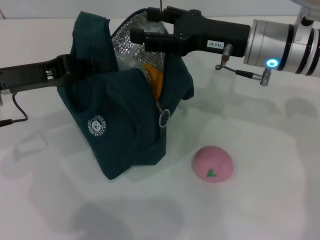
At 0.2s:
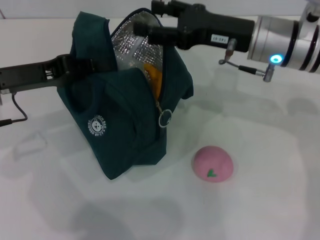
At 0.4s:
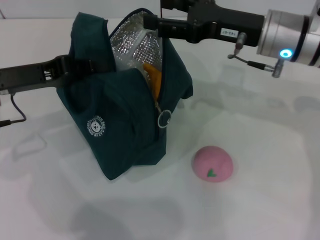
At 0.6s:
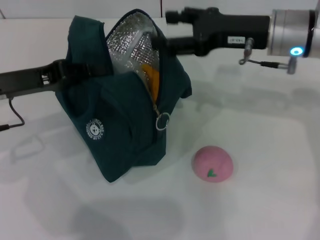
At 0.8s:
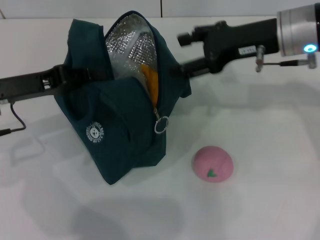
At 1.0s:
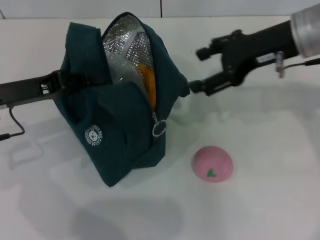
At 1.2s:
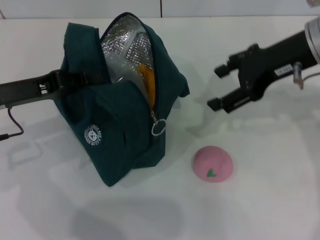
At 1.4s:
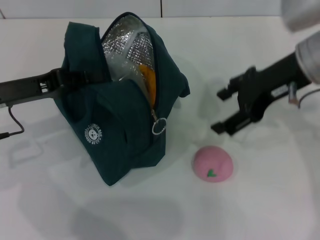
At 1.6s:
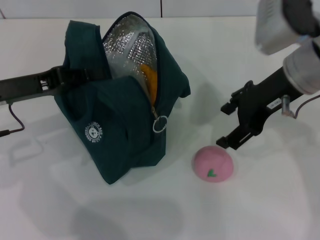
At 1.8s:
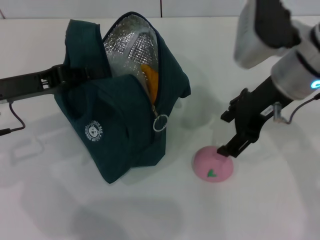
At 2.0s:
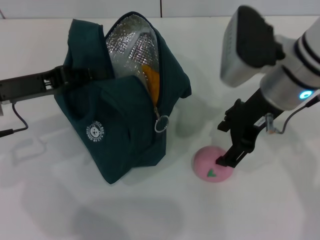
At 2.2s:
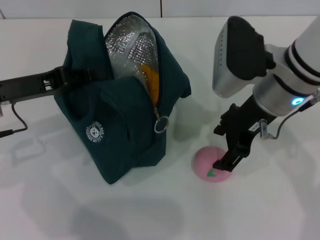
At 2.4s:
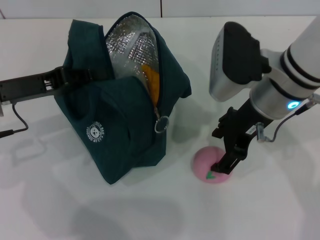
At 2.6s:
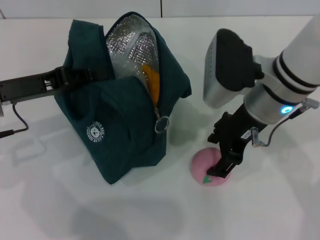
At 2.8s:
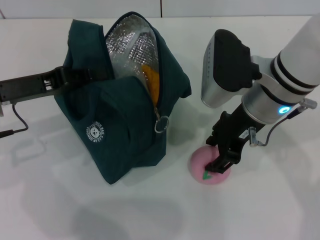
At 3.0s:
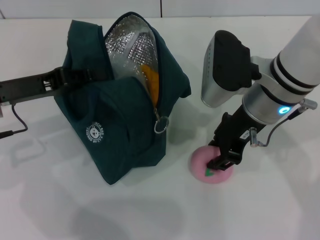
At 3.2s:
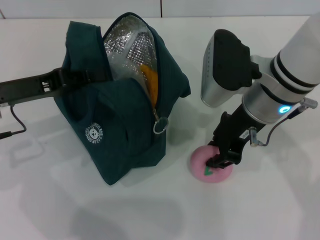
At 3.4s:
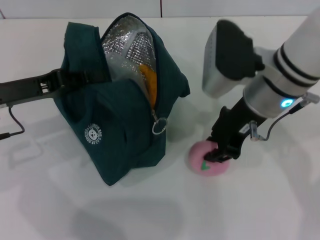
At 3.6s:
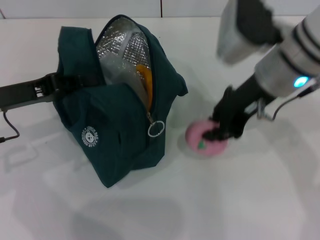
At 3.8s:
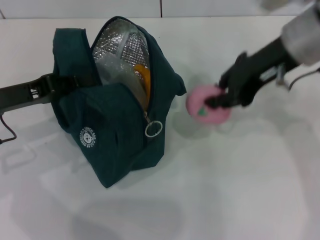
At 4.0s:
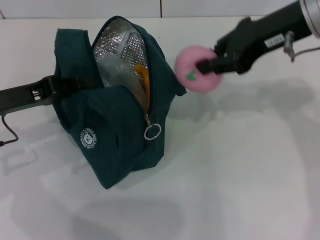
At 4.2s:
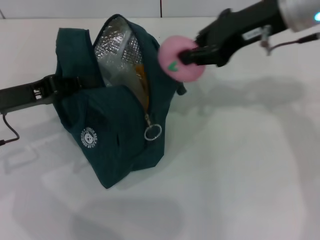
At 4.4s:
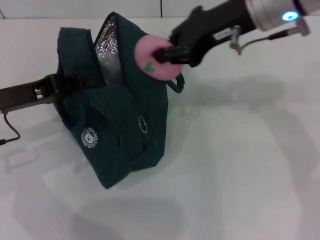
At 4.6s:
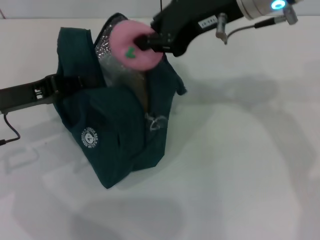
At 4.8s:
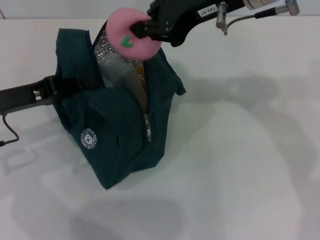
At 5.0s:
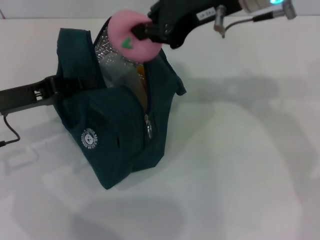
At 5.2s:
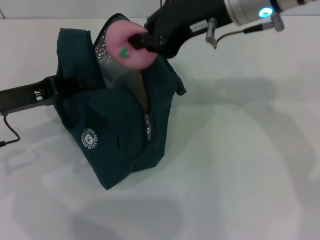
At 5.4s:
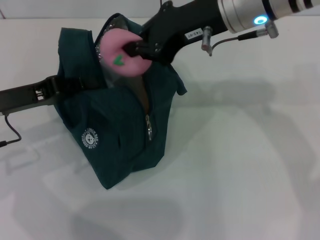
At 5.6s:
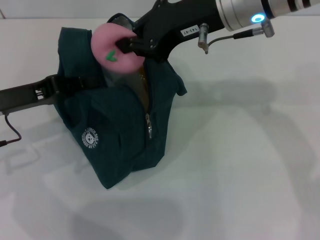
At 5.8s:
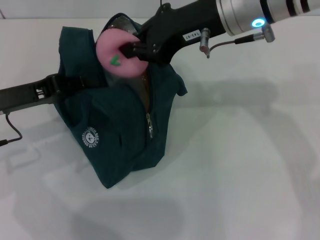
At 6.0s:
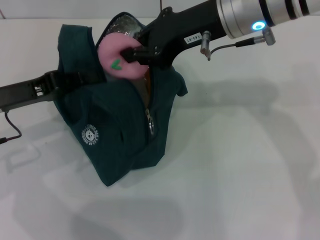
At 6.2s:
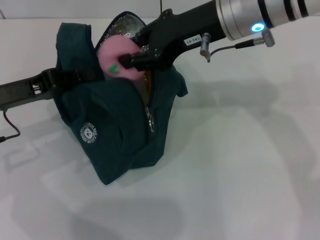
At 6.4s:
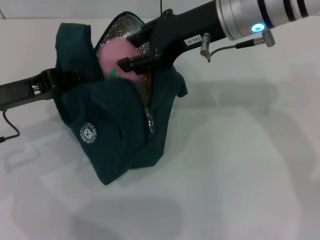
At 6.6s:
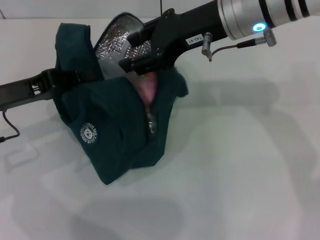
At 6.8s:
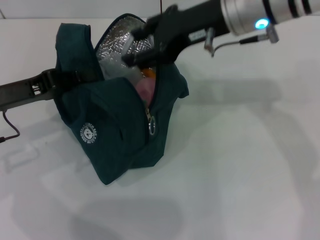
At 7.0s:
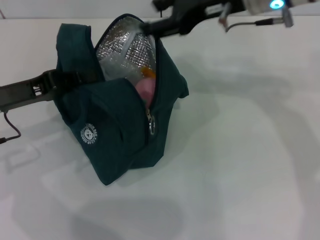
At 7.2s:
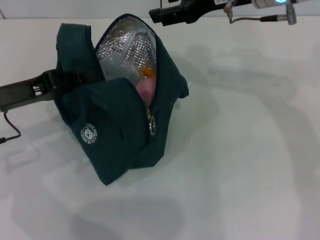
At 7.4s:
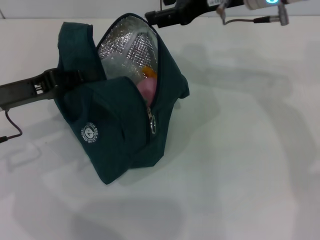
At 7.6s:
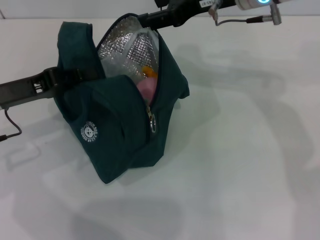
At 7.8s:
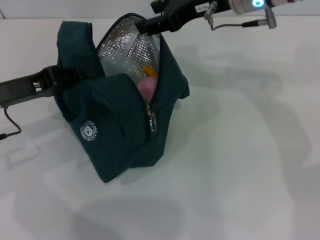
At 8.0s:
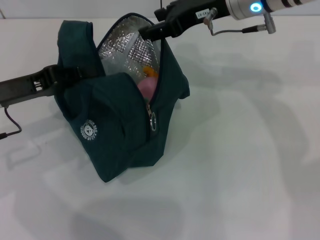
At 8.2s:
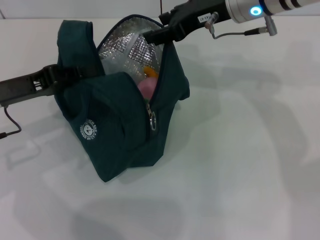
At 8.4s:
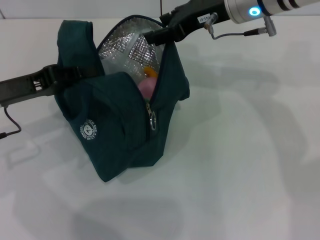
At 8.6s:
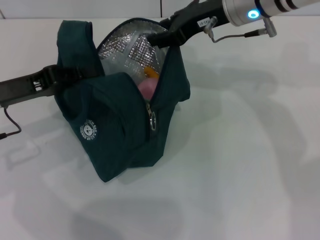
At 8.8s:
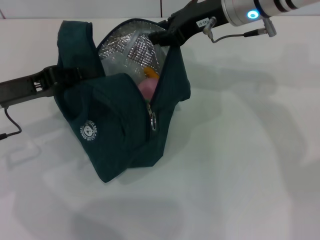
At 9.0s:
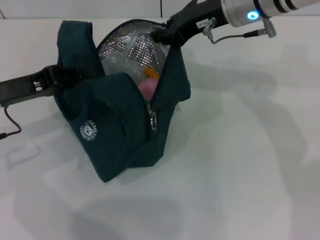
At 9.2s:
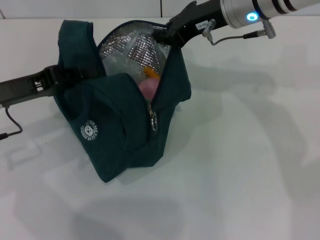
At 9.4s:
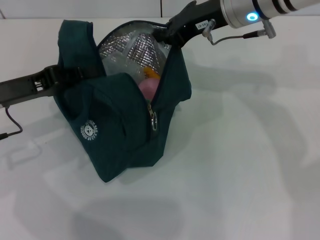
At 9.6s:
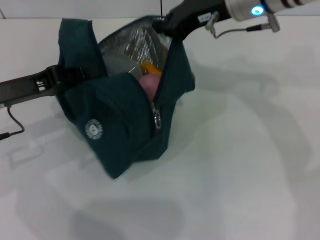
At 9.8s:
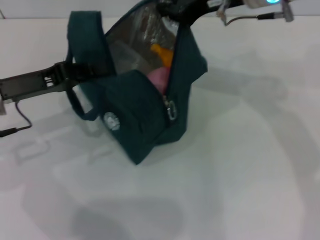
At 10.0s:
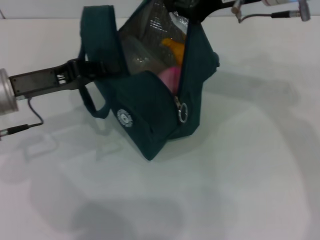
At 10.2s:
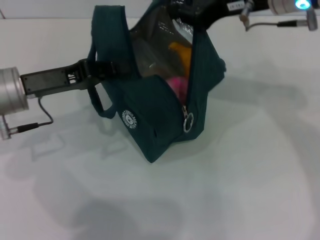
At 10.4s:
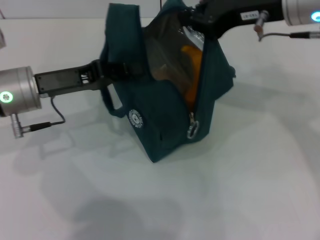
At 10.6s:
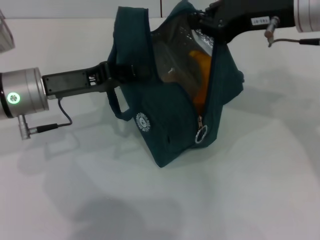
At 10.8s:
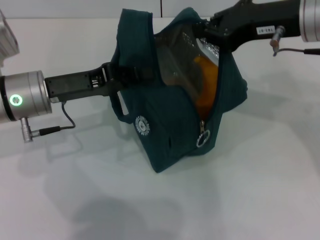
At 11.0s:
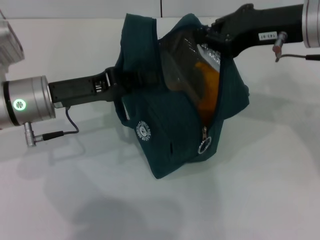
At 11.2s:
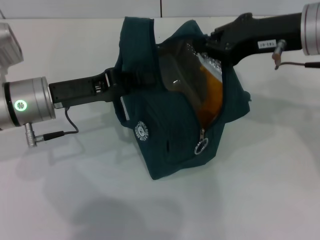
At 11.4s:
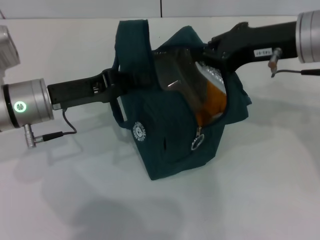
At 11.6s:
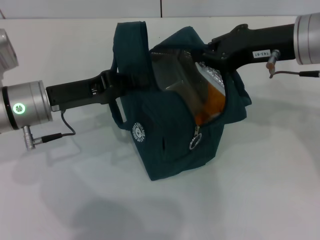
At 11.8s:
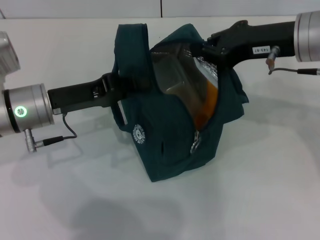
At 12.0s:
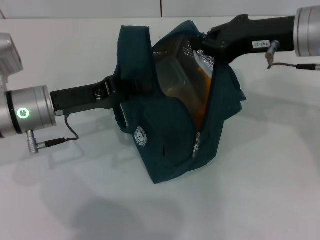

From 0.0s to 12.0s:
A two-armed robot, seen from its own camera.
Step, from 0.4s to 3.0s: Grab the peach with your right hand.
From 0.0s to 1.6s: The right gripper shifts by about 5 cm.
From 1.6s to 3.0s: The right gripper moves to the left, approximately 5 cm, and closes up.
From 3.0s to 4.4s: The right gripper is displaced upward by some 10 cm, and closes up.
From 4.4s to 6.0s: The grippers stay close to where they were, moving slightly.
From 6.0s to 7.6s: The right gripper shifts by roughly 5 cm, and opens its fingers.
From 7.6s to 9.0s: The right gripper closes.
From 9.0s to 10.4s: The right gripper goes some 10 cm to the right and backward. Meanwhile the left gripper travels to the right by about 5 cm.

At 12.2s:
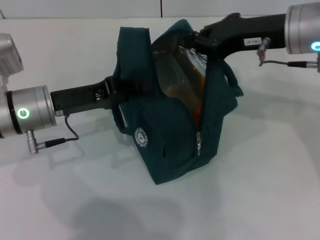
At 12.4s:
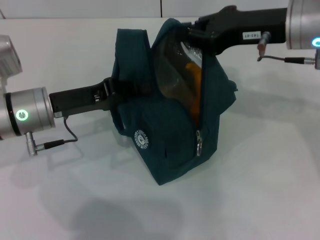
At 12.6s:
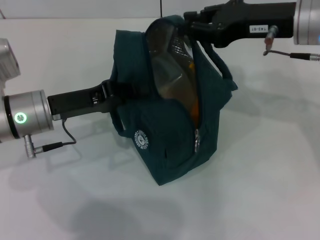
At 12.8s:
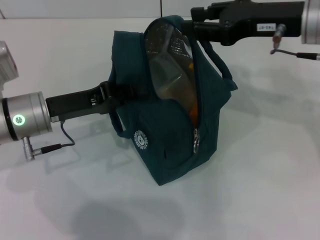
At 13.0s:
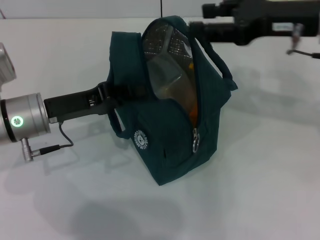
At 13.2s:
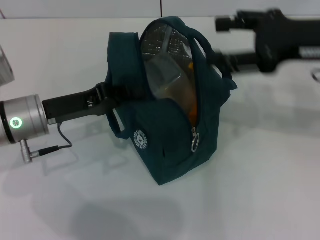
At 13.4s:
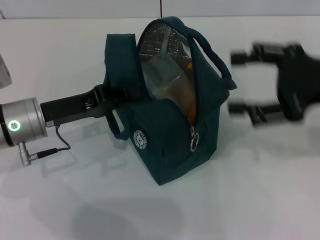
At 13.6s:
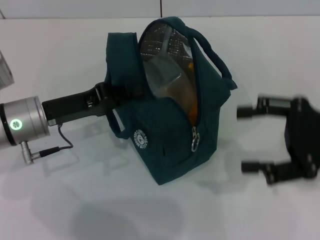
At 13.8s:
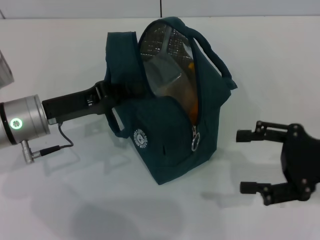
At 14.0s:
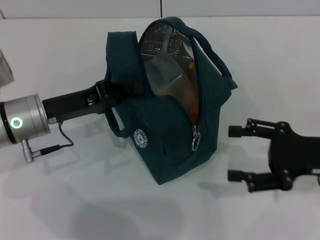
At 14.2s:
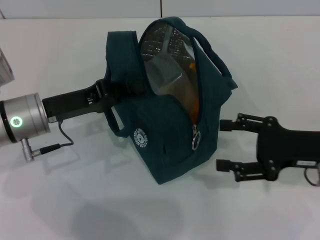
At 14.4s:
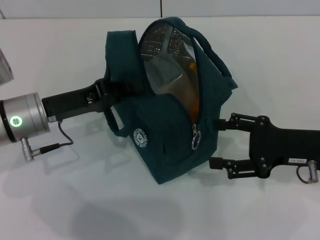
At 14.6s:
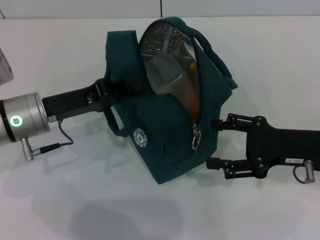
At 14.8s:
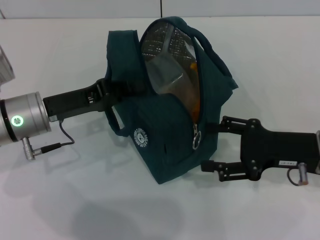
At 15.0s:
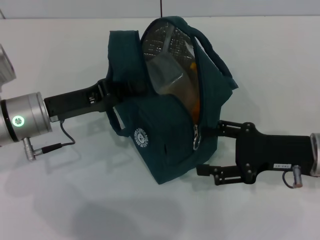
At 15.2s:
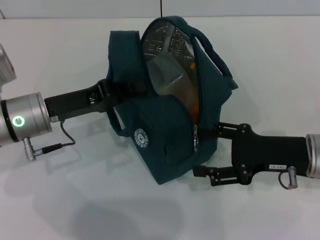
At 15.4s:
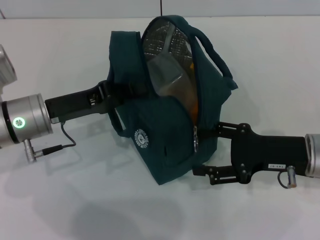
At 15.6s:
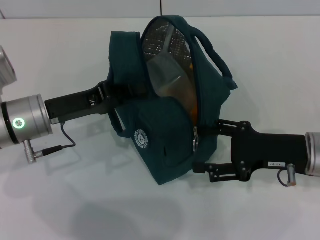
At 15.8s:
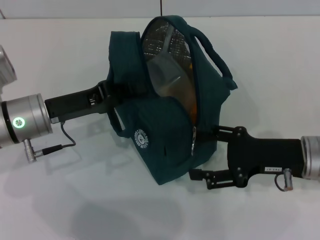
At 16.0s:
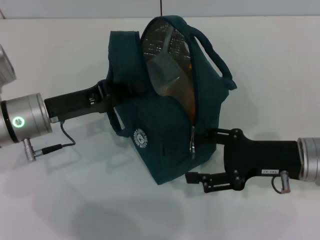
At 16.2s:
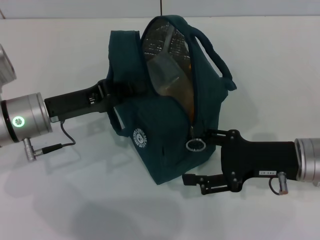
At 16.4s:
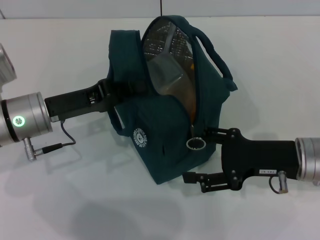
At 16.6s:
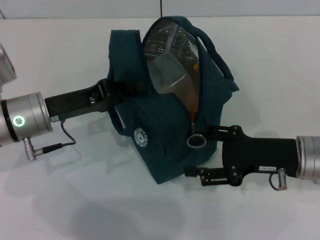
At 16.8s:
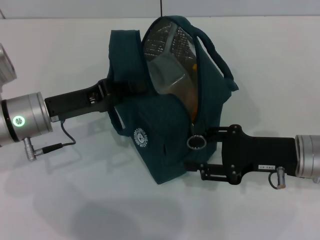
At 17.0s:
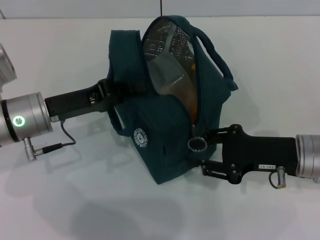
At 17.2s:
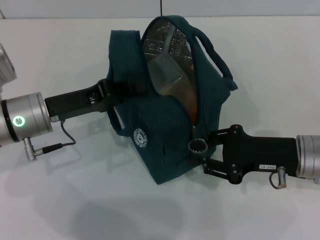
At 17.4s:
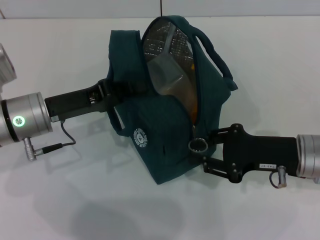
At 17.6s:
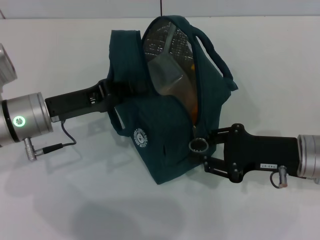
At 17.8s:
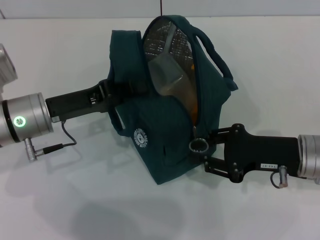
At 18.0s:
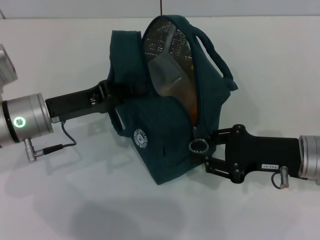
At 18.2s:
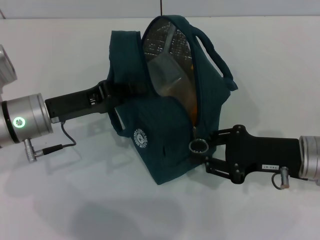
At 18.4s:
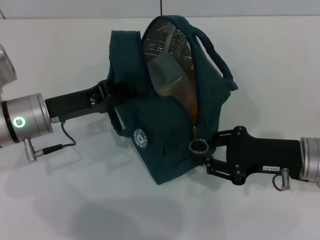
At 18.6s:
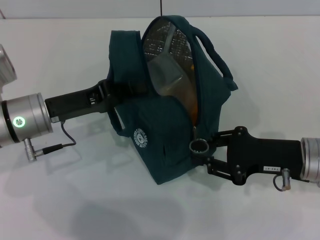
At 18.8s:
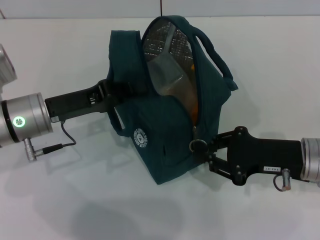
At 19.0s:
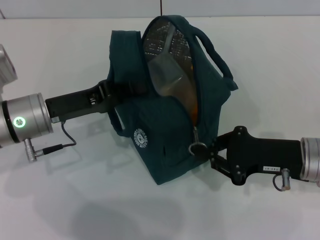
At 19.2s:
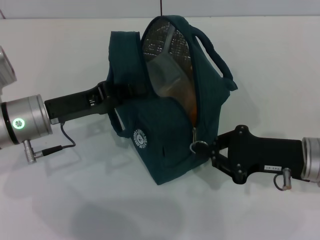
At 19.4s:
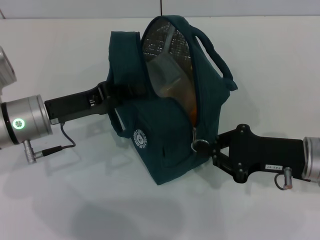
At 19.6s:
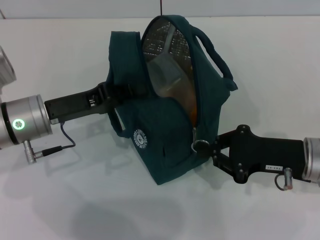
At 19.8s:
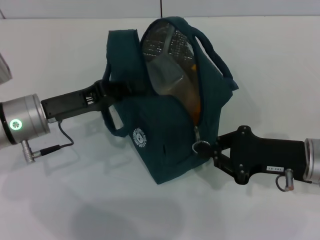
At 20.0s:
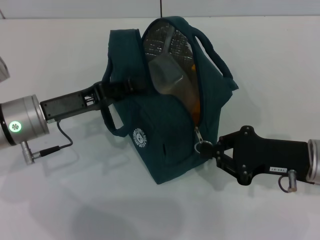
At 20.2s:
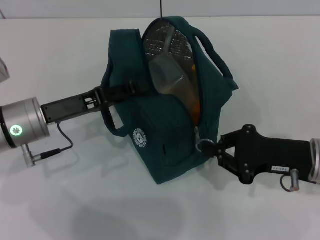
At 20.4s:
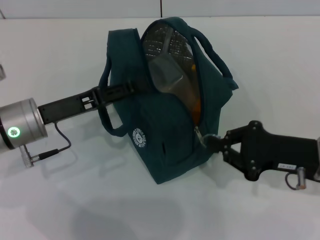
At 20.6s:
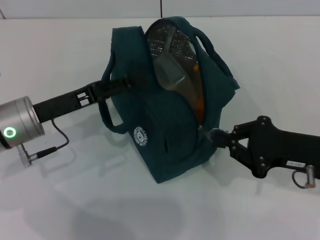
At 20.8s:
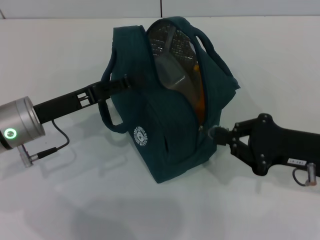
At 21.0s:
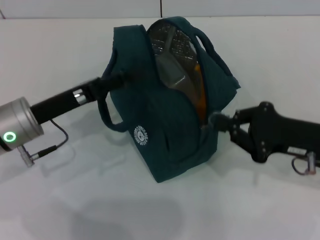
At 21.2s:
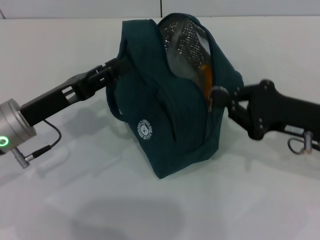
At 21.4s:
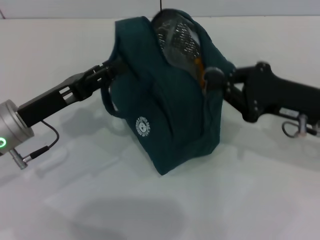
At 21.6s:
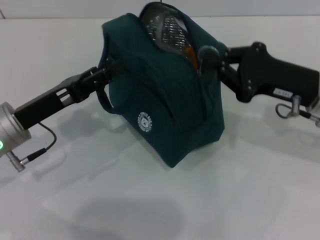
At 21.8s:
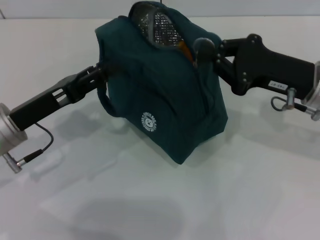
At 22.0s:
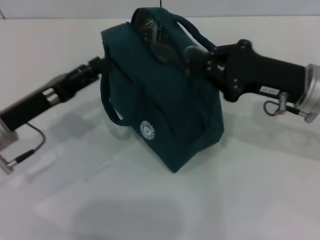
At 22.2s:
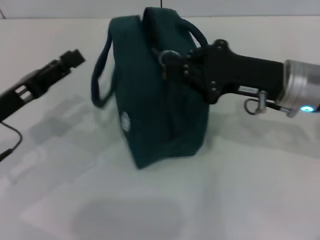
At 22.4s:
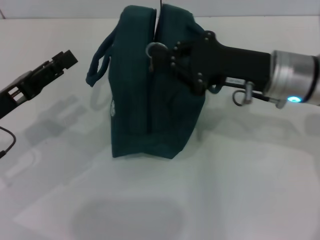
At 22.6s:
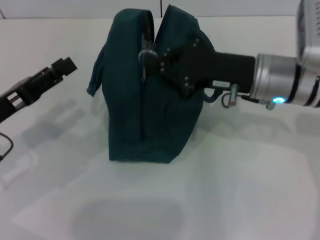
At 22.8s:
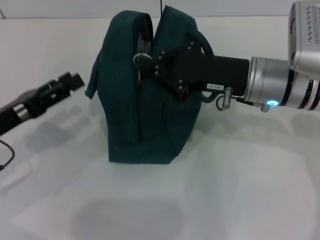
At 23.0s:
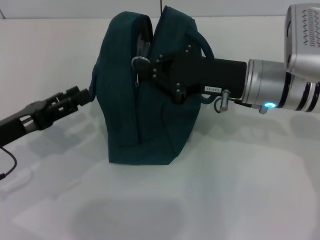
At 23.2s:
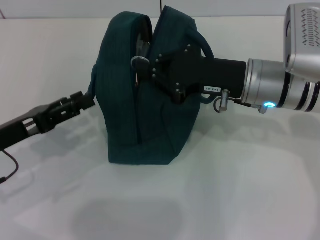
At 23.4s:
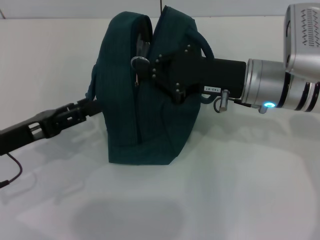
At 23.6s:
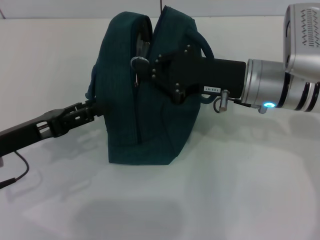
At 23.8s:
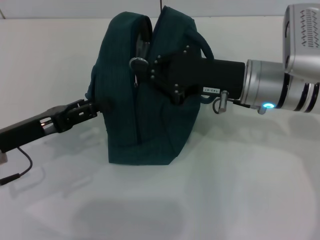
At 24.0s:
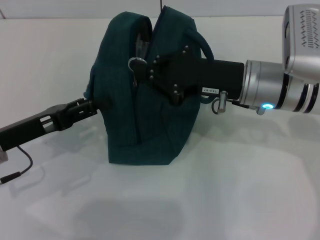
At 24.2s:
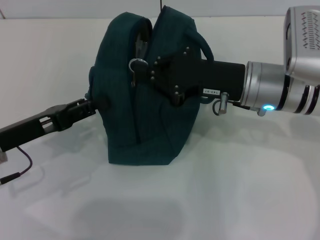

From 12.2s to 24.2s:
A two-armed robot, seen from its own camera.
Step, from 13.0s to 21.8s: Hold the lunch bag with your left hand.
From 12.2s to 13.8s: The right gripper heads backward, to the right and downward, covering about 20 cm, and opens its fingers.
From 13.8s to 15.2s: The right gripper heads to the left, covering about 5 cm.
From 15.2s to 16.6s: The grippers make only small movements.
From 16.6s to 18.2s: The right gripper closes.
From 18.2s to 19.8s: The two grippers keep their place.
From 19.8s to 21.2s: The left gripper opens its fingers.
From 21.2s to 22.6s: The right gripper moves to the left and forward, roughly 10 cm. The left gripper is displaced to the left by approximately 5 cm.
From 22.6s to 24.2s: There are only small adjustments of the grippers.
